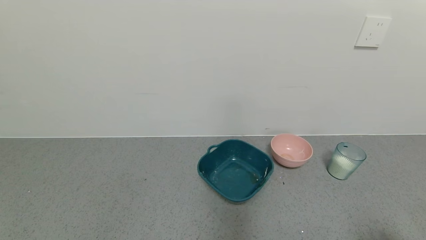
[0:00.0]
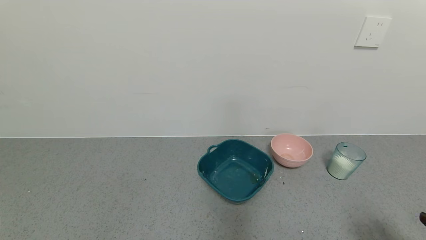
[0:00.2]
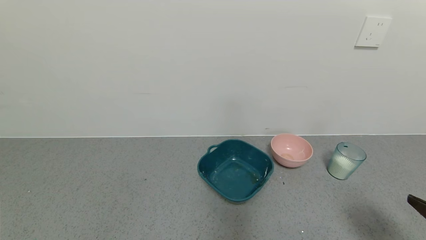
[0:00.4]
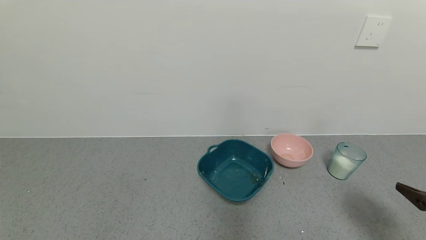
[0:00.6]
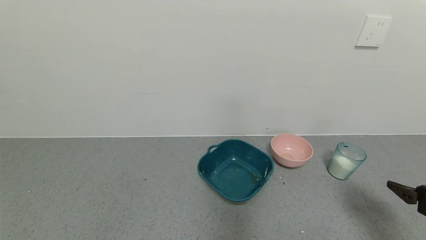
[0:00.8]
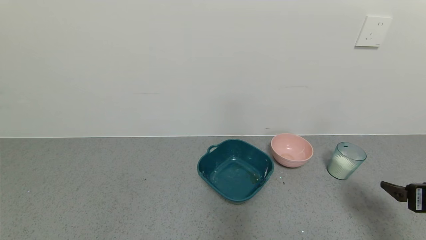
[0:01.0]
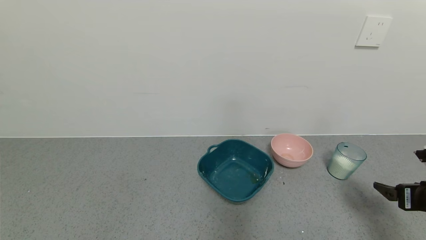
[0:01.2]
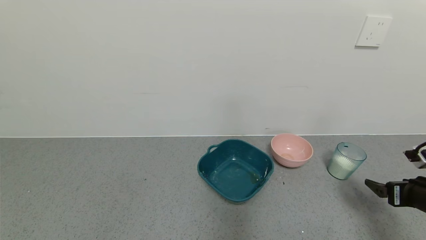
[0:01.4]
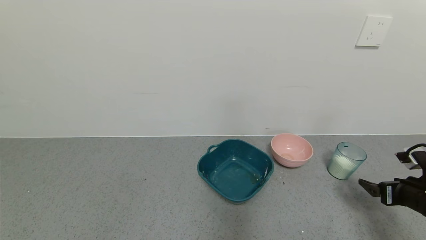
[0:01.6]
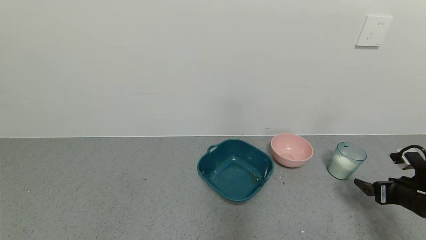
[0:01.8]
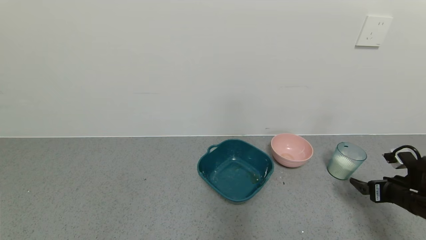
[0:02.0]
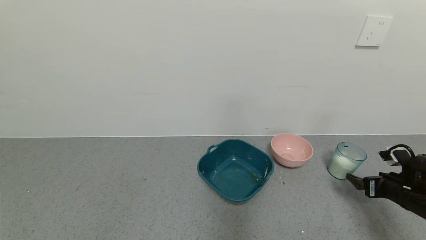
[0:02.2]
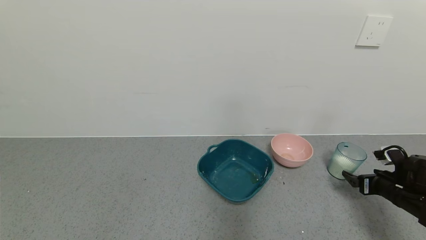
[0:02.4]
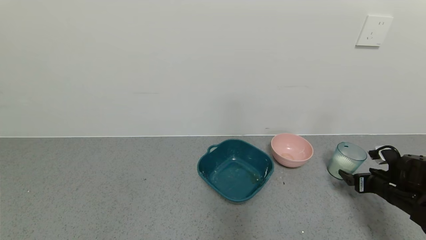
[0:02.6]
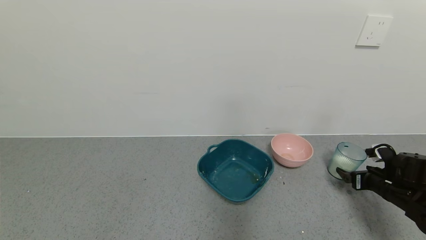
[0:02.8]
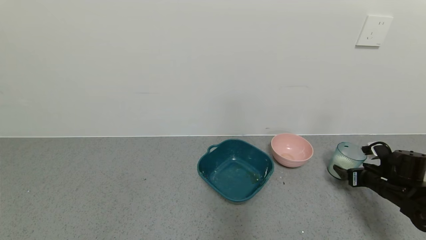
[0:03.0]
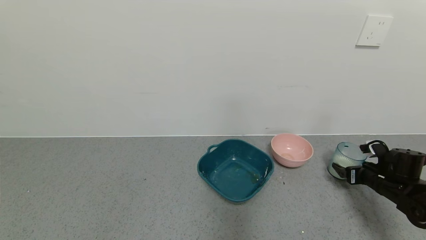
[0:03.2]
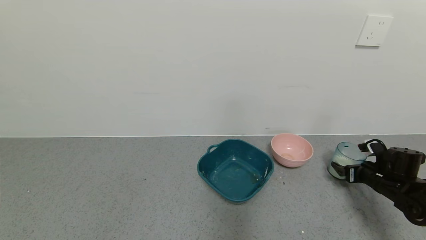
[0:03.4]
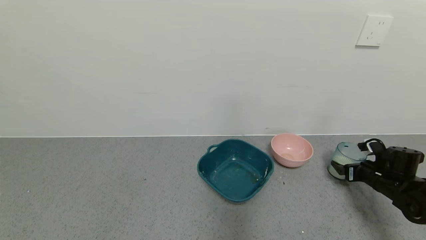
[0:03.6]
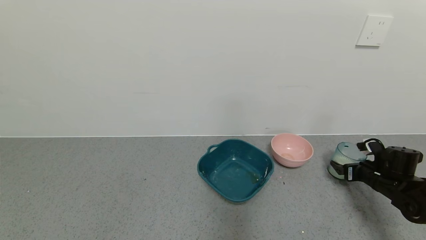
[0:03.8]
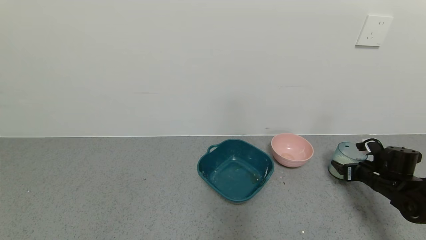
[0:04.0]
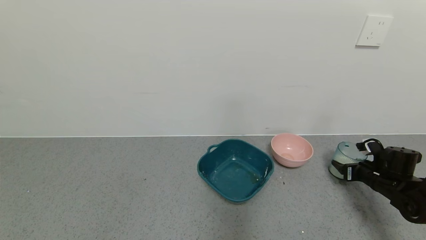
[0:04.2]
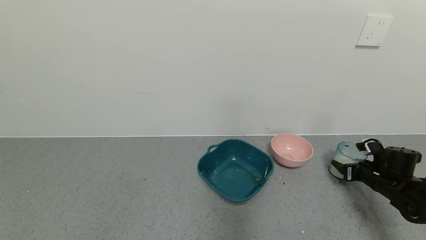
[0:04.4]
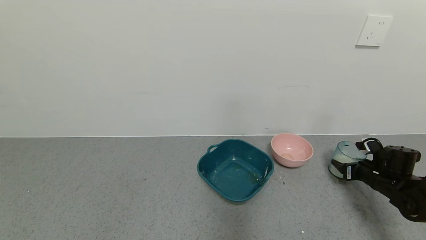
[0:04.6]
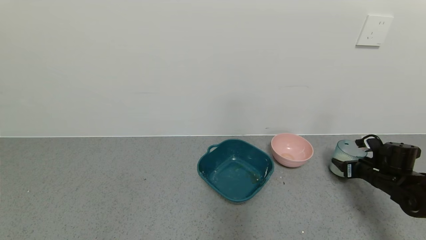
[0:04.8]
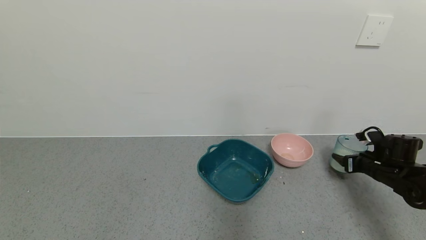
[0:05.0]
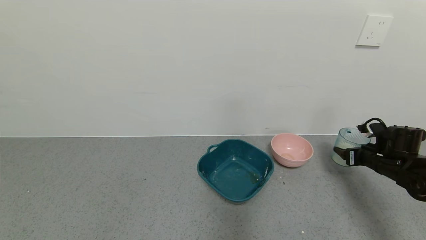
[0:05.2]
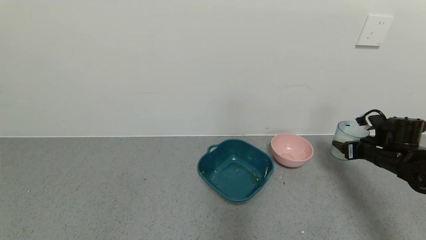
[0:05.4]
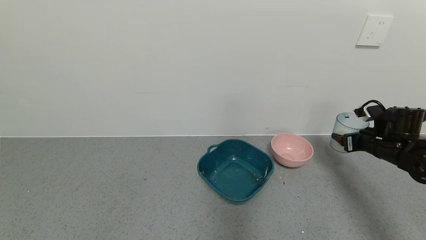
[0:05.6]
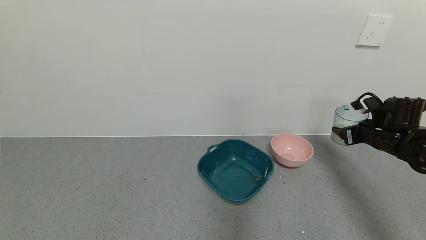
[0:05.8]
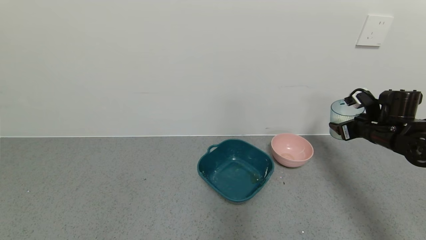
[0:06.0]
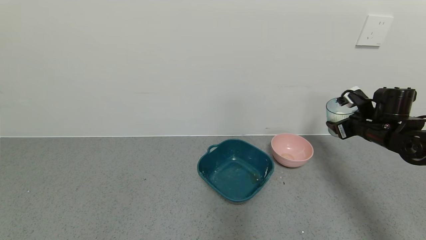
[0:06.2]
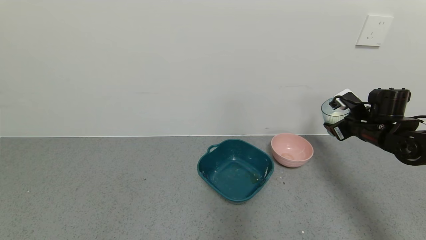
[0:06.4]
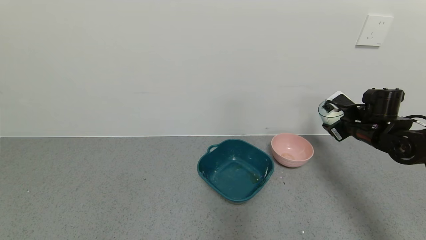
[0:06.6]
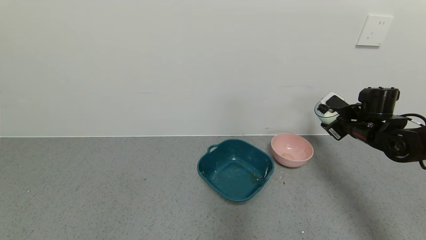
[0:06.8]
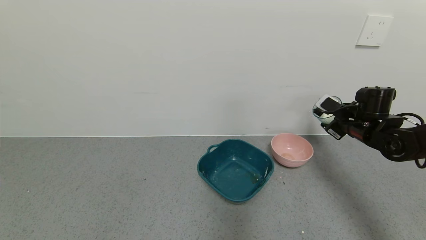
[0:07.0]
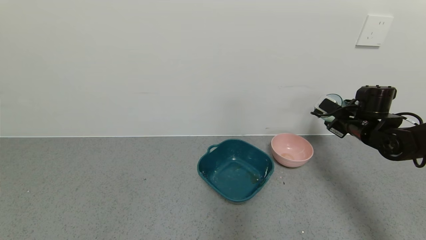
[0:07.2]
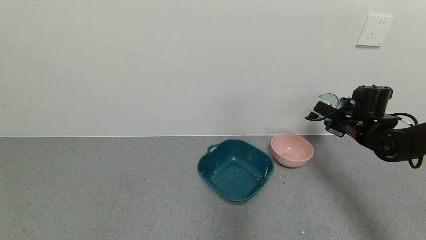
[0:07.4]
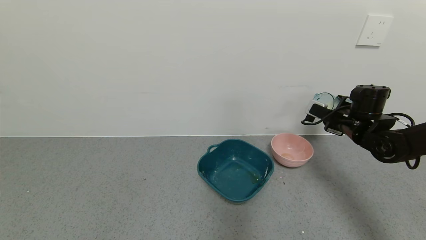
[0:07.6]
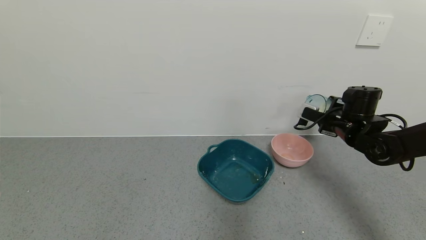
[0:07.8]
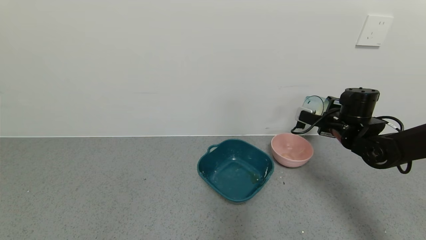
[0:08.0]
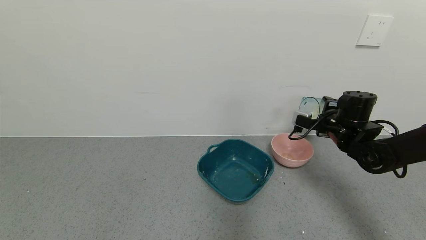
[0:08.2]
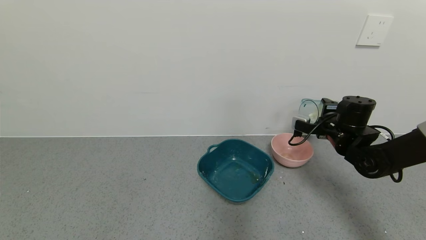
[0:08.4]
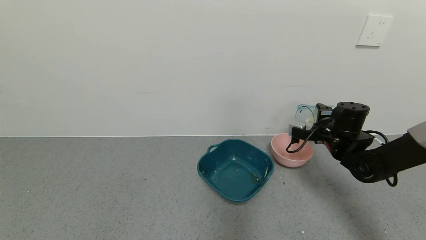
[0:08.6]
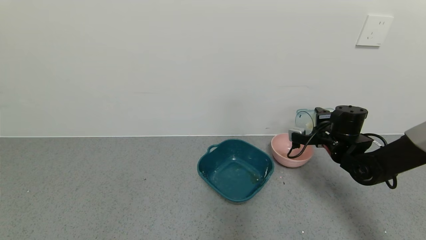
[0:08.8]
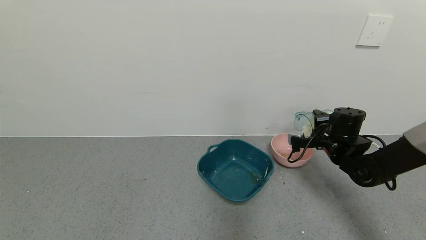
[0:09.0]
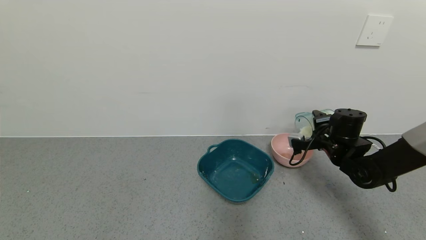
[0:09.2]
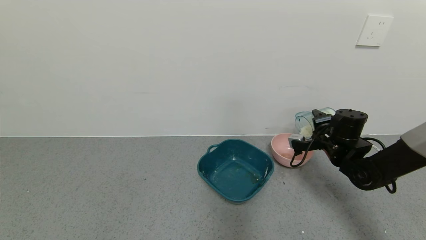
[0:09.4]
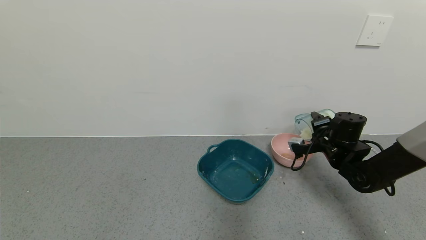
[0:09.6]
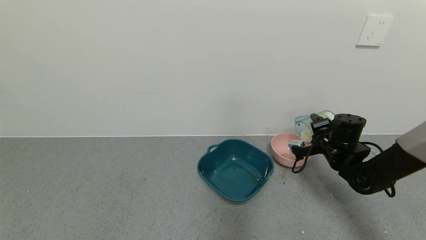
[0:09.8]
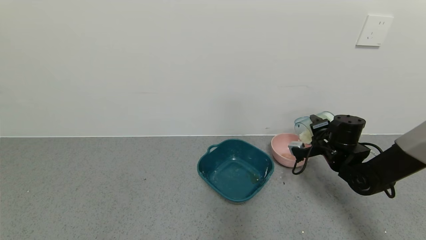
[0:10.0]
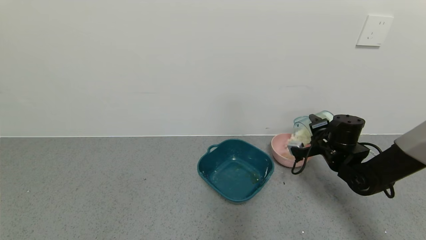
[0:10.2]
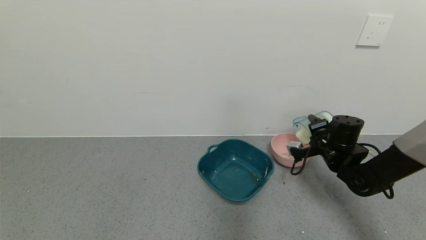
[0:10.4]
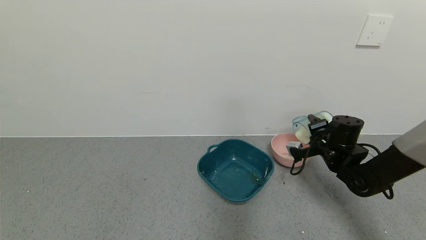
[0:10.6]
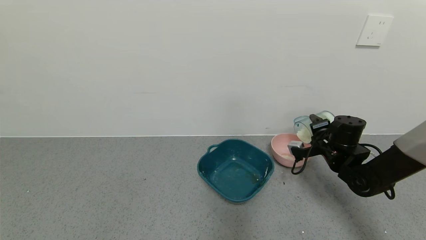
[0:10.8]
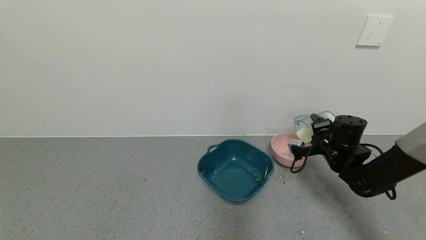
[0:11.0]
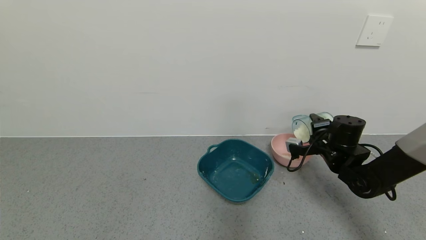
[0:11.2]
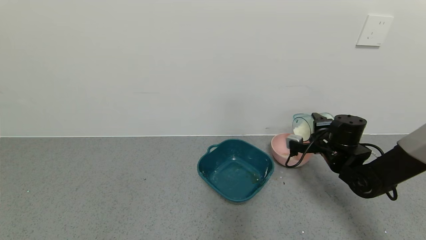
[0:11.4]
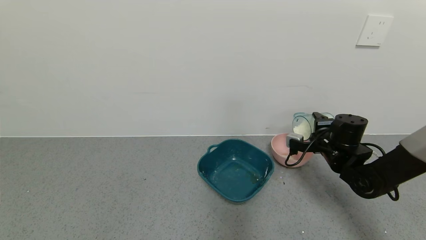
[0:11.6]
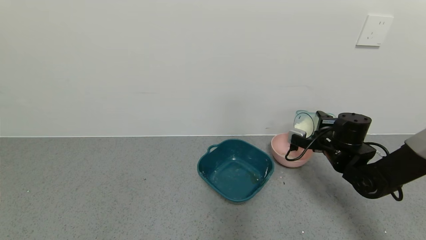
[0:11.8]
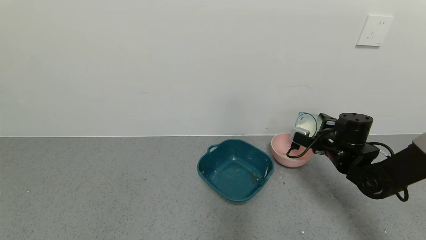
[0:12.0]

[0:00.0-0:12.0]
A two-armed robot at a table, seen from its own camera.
Task of the whole recording: use a gripper to pick up the cup and pour the powder into a bowl or tray.
Step, 0:00.0 to 0:04.2: Grasp the glass of powder with the right gripper.
0:00.0 to 0:01.6: The right gripper moves forward, some 20 cm.
0:01.6 to 0:03.0: The right gripper moves forward and downward, approximately 10 cm.
0:03.0 to 0:04.4: The right gripper closes its fingers.
0:04.4 to 0:06.0: The right gripper heads upward, covering approximately 15 cm.
0:06.0 to 0:07.6: The right gripper shifts by roughly 5 cm.
0:07.6 to 0:09.0: The right gripper travels downward by approximately 5 cm.
0:09.0 to 0:10.4: There are only small adjustments of the grippers.

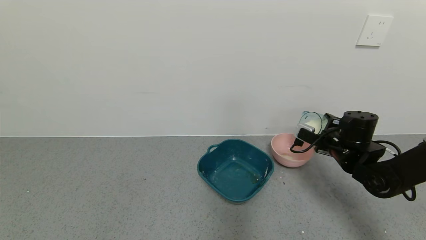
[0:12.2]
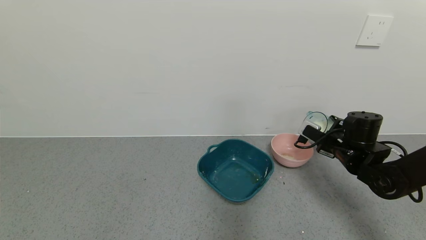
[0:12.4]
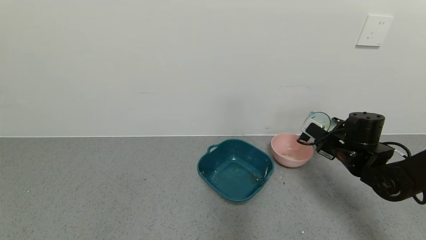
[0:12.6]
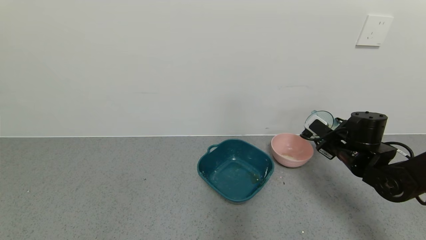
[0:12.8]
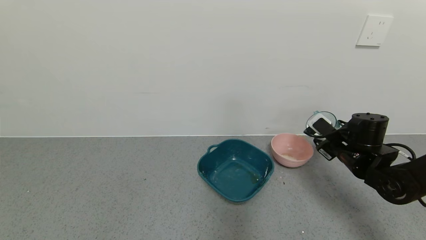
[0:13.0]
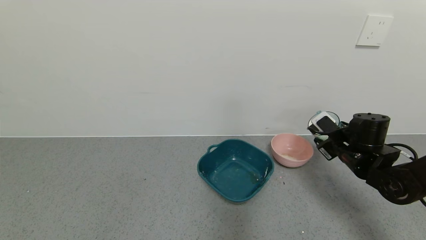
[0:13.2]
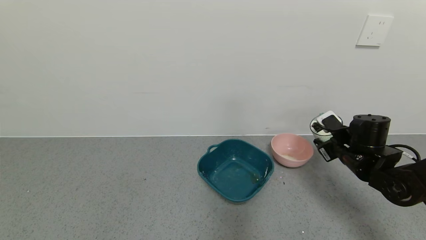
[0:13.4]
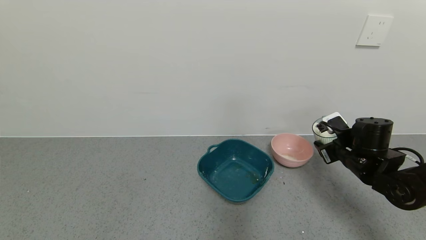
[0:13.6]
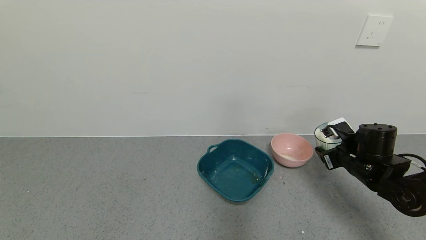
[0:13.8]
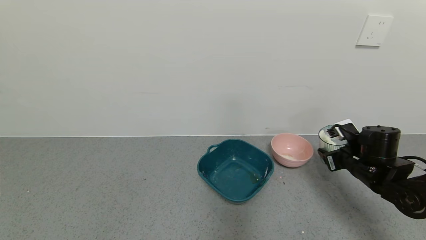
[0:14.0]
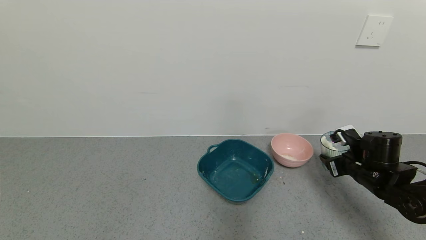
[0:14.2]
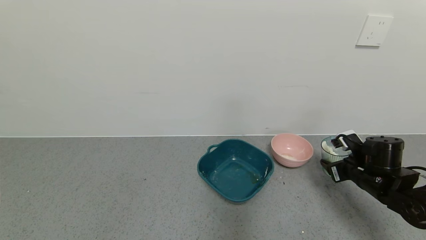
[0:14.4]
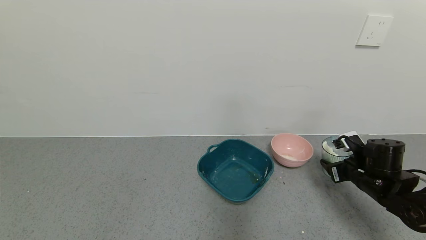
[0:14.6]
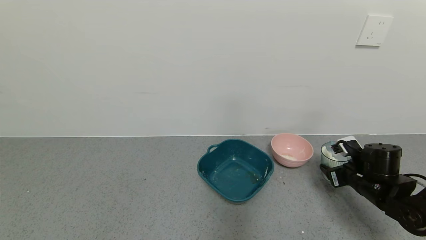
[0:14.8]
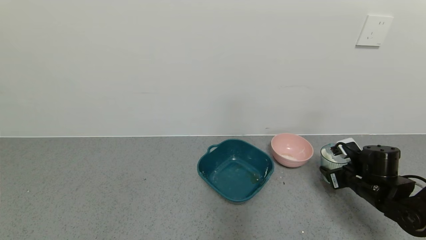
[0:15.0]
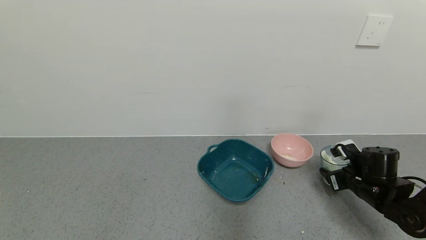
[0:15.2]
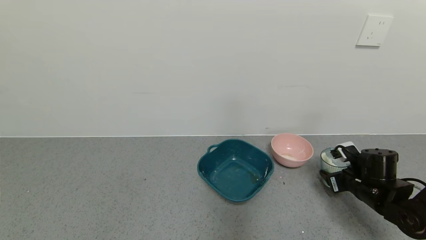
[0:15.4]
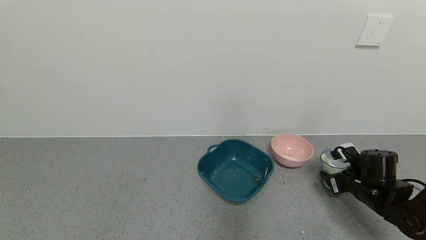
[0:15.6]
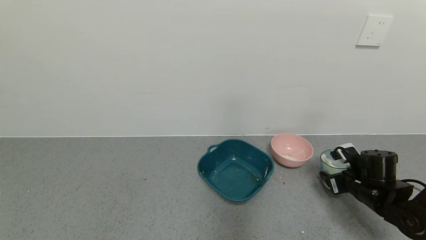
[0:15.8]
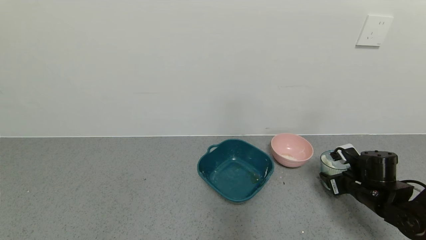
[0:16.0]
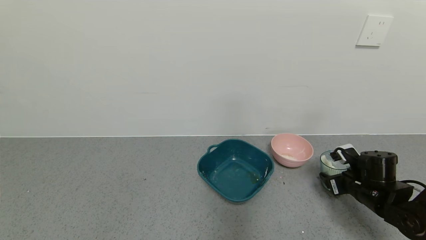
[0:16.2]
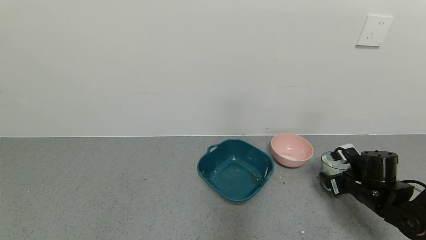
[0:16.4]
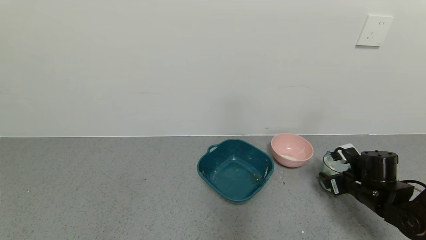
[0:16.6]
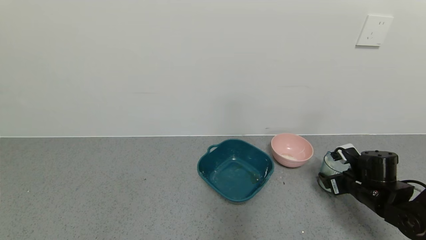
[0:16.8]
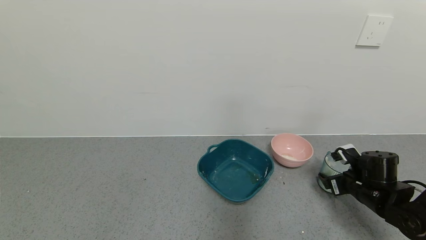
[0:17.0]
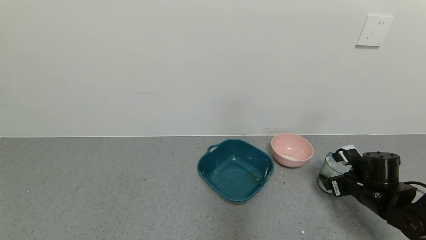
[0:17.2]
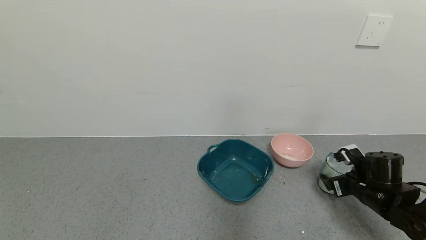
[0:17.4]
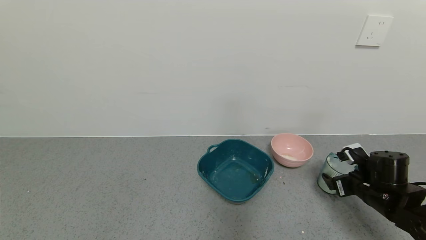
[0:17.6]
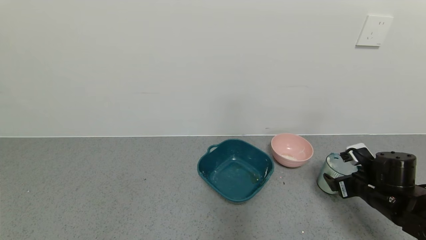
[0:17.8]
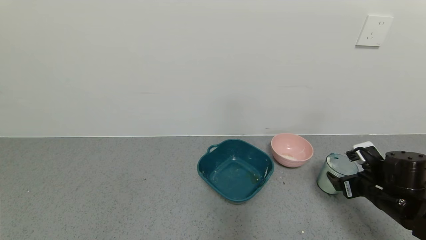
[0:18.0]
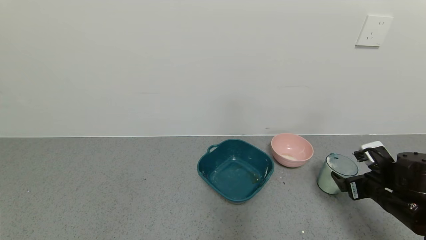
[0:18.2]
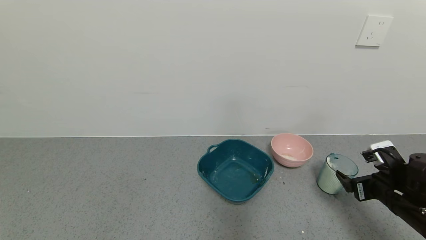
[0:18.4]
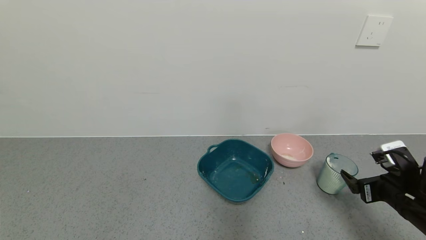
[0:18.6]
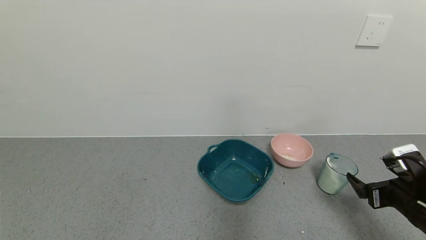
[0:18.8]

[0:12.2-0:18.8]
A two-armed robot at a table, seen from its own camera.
Task of the whole recording: use a gripper to pick up the cup and pour the powder into a bowl or tray.
Step, 0:12.6 to 0:18.2: Place the glass cup down with the right gripper.
0:12.2 to 0:13.8: The right gripper changes place by approximately 5 cm.
0:13.8 to 0:15.4: The right gripper travels downward by approximately 5 cm.
0:15.4 to 0:17.2: The right gripper opens its fingers.
0:17.2 to 0:18.8: The right gripper is displaced backward and upward by about 10 cm.
